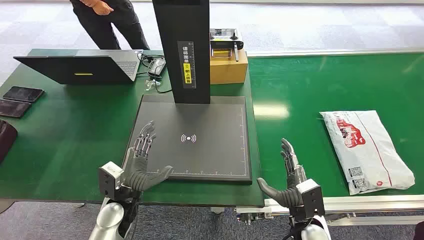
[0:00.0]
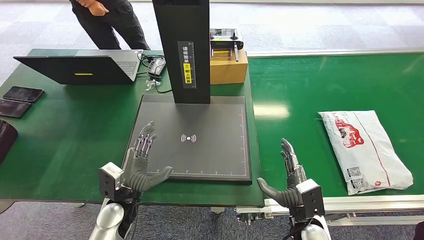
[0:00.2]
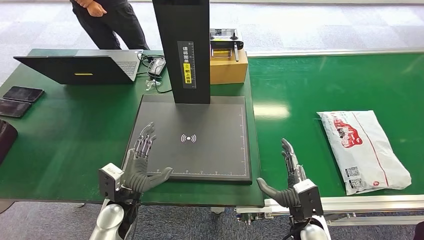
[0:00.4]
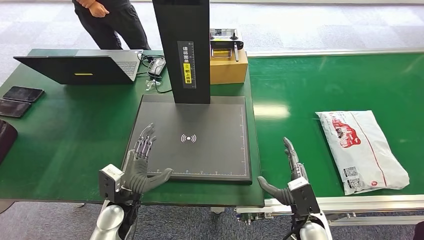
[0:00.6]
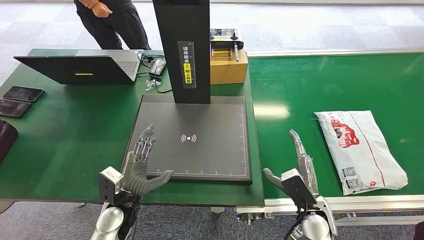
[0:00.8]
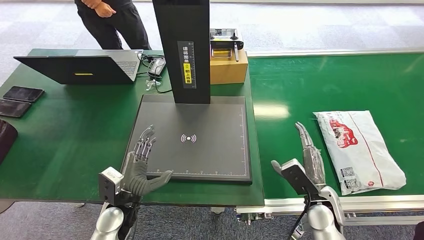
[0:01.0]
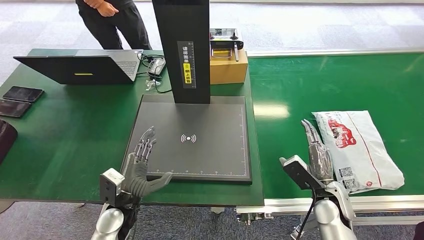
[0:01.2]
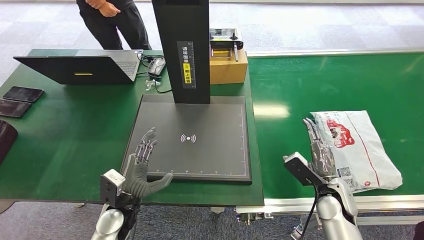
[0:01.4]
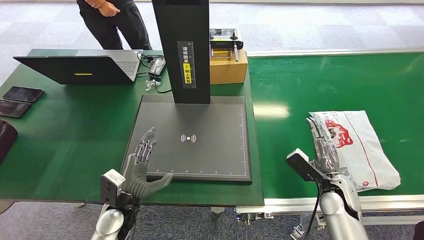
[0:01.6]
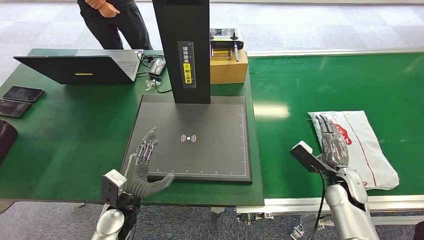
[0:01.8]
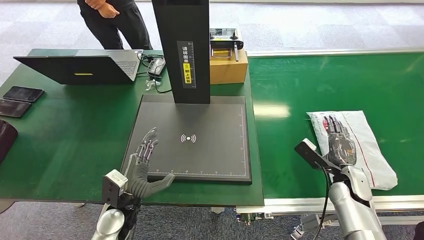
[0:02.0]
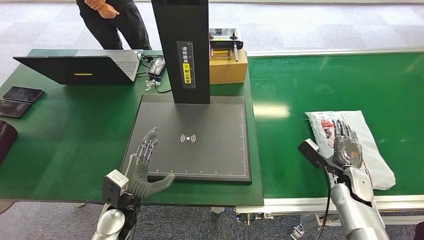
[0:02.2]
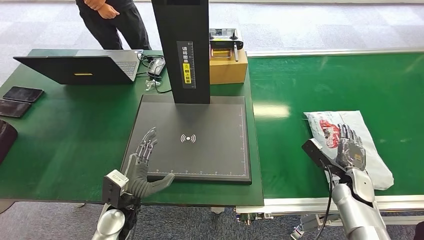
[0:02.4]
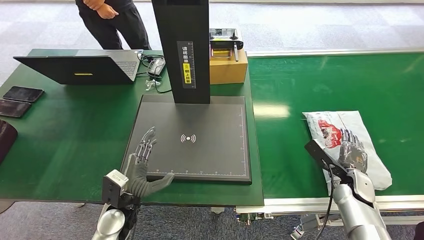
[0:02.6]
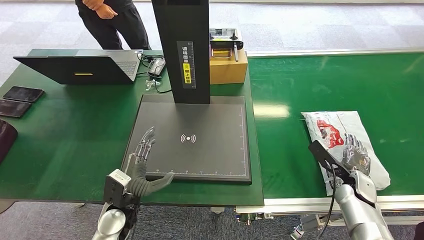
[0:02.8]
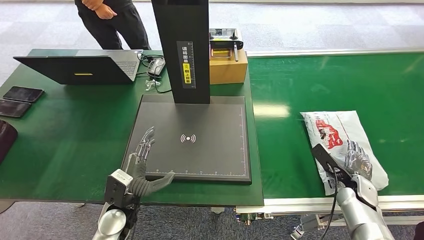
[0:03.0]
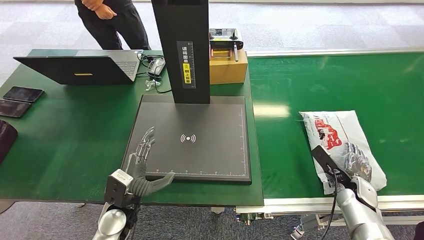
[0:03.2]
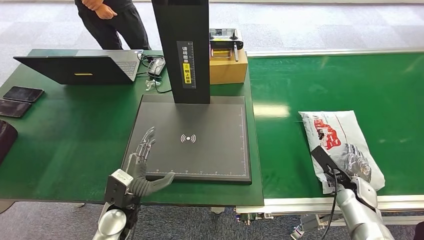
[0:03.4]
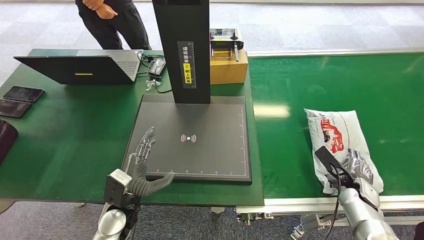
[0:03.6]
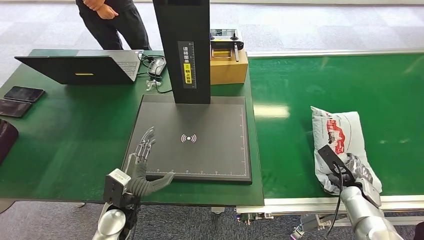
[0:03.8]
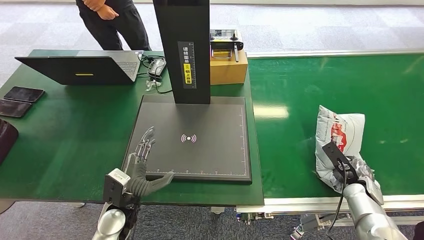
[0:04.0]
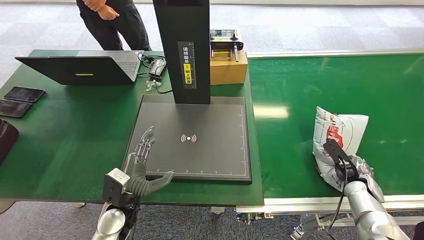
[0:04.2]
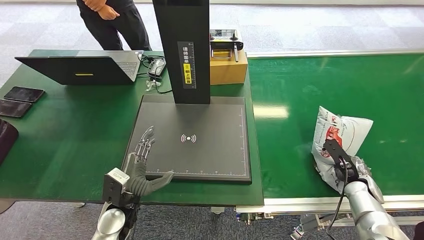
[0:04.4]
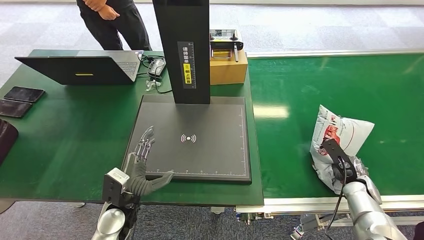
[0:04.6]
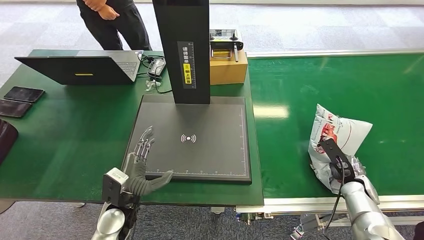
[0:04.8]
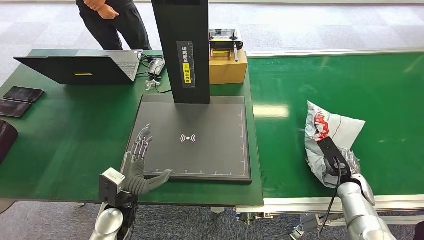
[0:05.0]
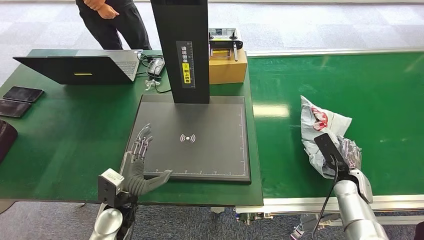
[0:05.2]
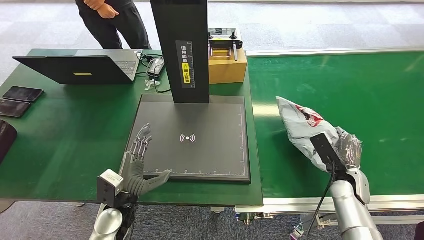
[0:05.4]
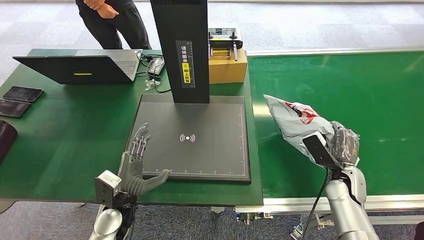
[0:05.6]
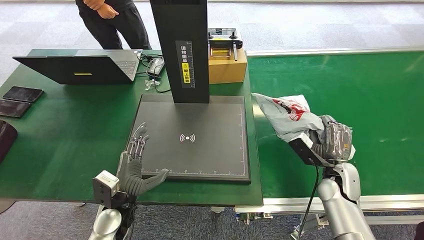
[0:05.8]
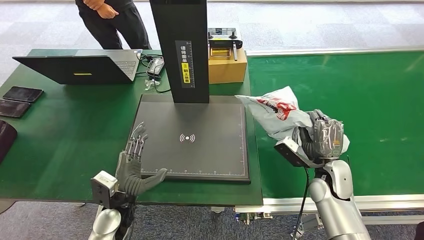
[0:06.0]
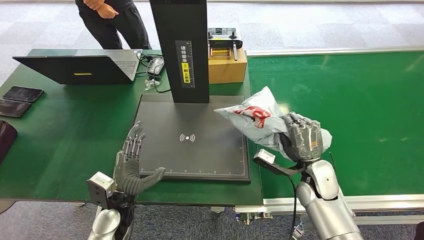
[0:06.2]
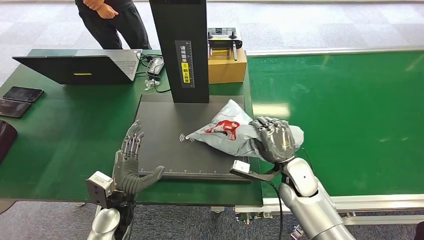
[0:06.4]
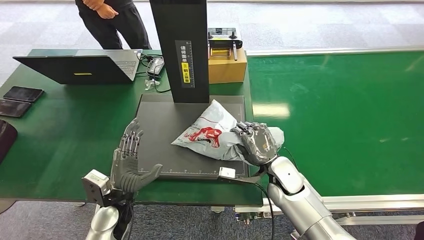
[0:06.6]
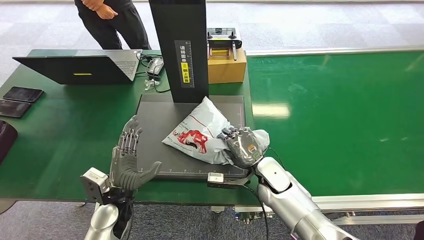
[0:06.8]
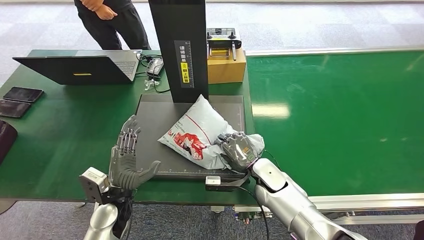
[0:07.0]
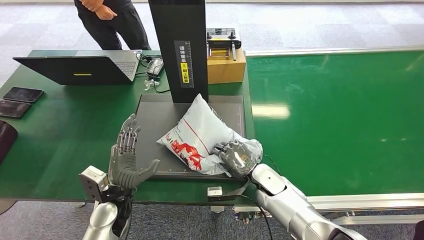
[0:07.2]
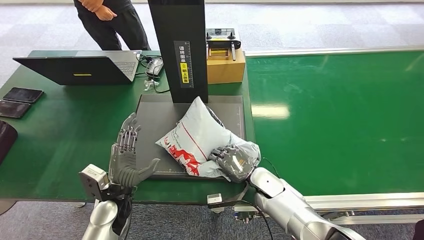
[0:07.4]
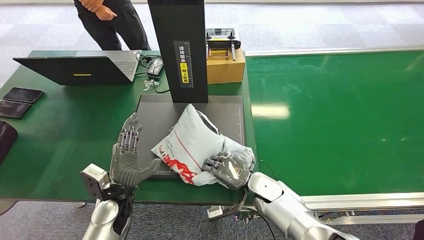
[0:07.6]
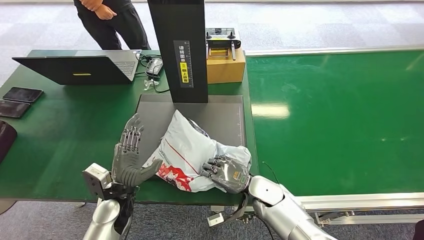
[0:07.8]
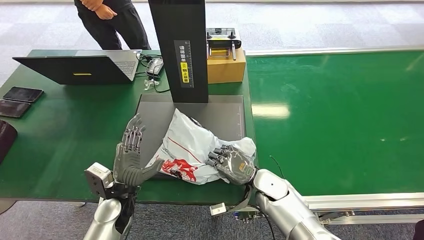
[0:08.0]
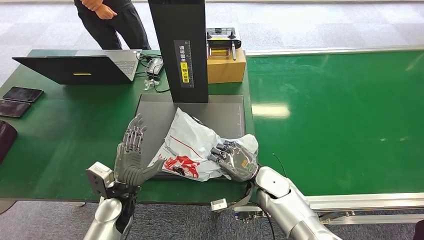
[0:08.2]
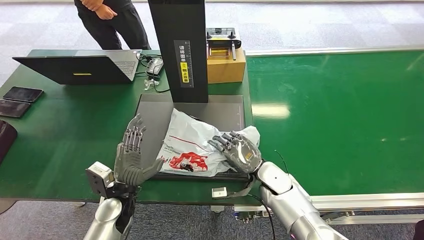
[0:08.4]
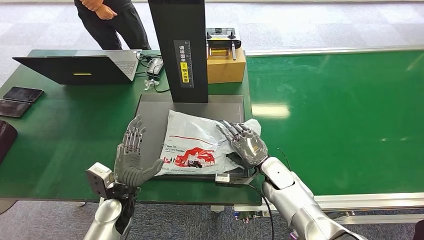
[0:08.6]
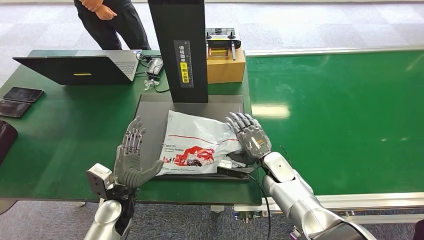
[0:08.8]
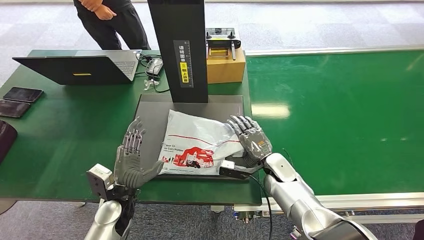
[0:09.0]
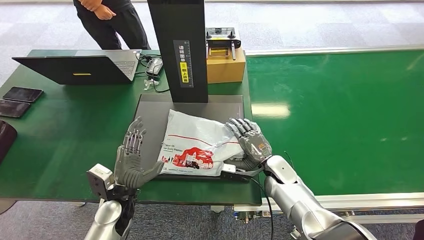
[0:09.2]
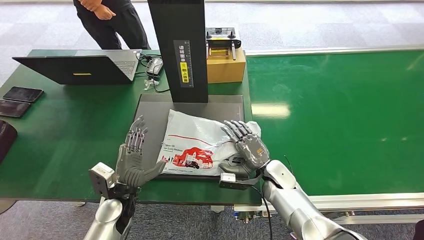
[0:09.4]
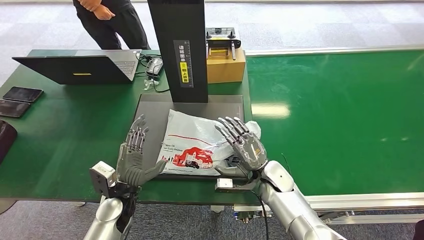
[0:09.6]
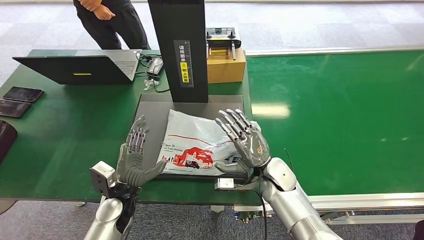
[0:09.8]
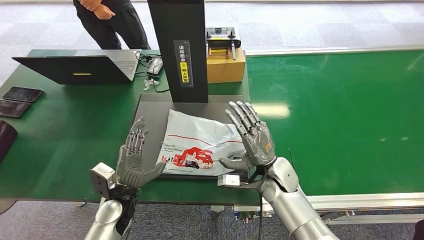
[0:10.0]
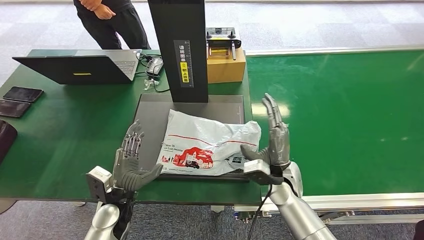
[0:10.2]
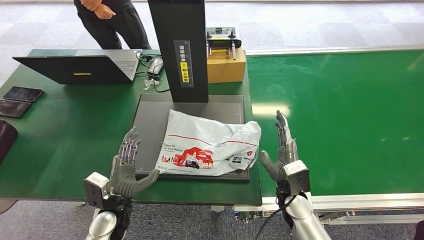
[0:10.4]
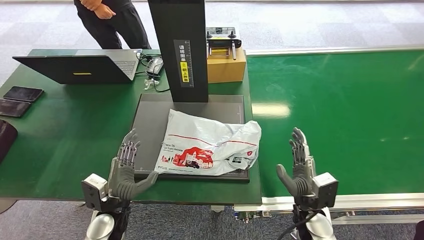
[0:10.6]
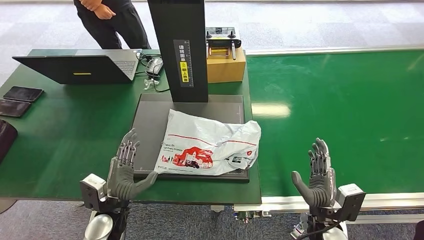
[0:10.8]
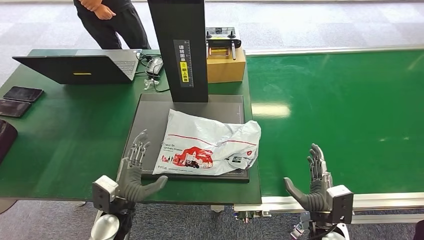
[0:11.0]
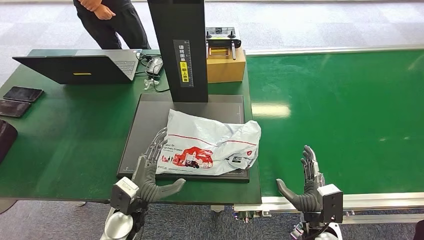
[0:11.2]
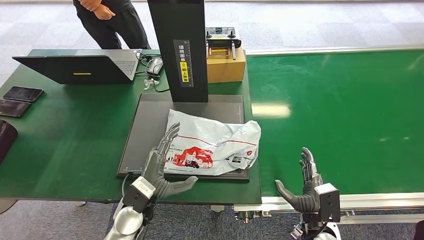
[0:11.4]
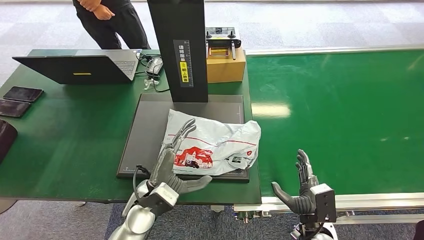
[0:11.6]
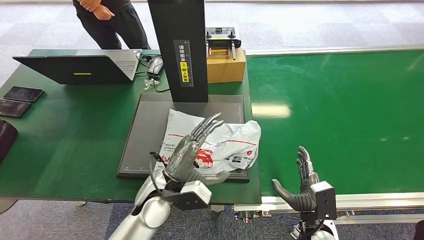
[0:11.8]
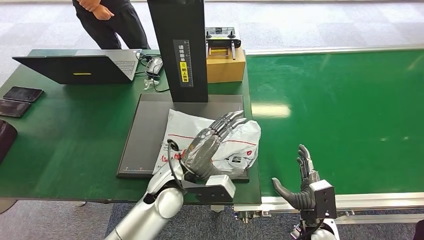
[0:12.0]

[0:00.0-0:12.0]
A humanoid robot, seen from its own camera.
Step, 0:00.0 to 0:06.0: Pick up the package from the conveyor belt.
Step, 0:06.2 to 0:10.4: Place the package onto the inbound machine.
0:01.6 to 0:03.0: The right hand heads to the right, covering about 10 cm.
0:07.6 to 0:09.0: The right hand changes place by roughly 5 cm.
0:09.0 to 0:10.4: The right hand travels backward by about 10 cm.
0:10.4 to 0:12.0: The left hand travels to the right, upward and forward by about 20 cm; the right hand travels backward and to the right by some 10 cm.

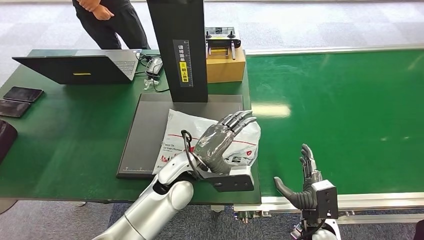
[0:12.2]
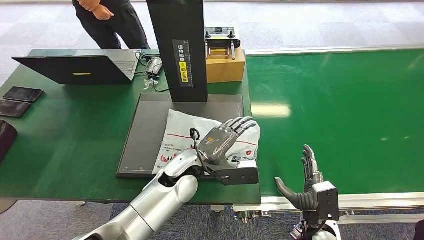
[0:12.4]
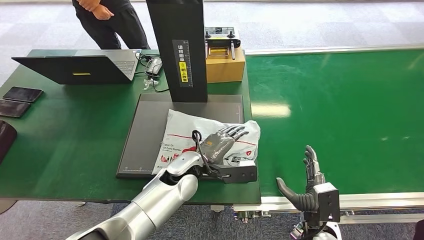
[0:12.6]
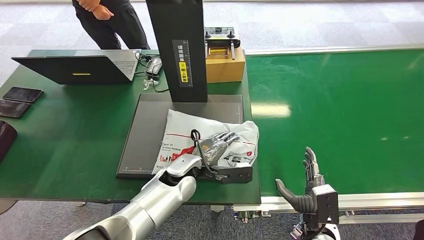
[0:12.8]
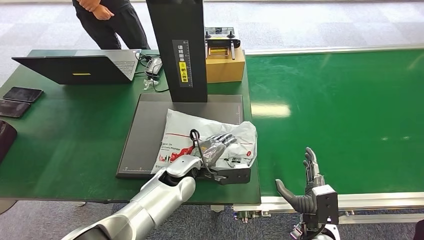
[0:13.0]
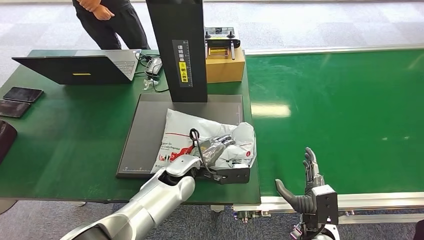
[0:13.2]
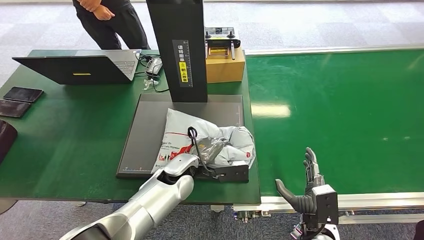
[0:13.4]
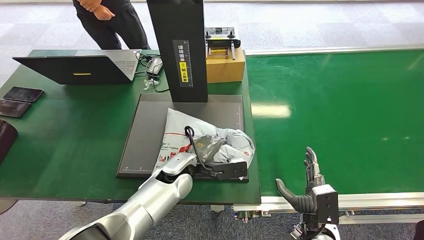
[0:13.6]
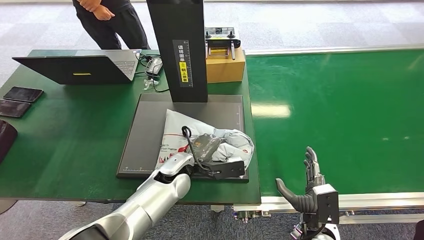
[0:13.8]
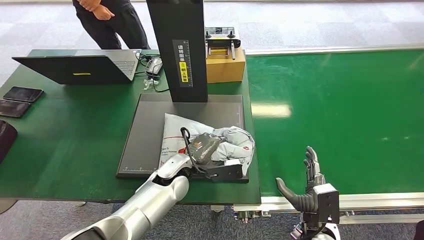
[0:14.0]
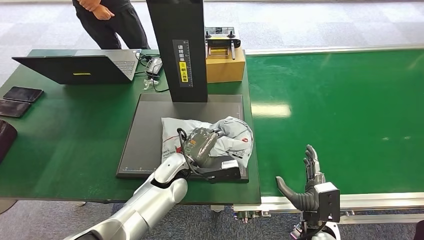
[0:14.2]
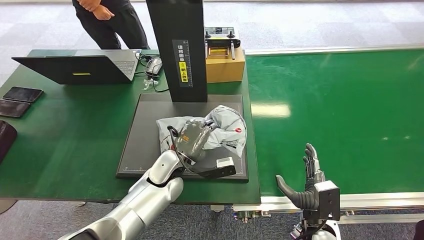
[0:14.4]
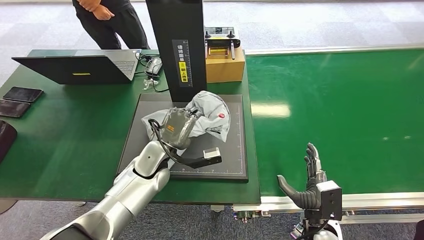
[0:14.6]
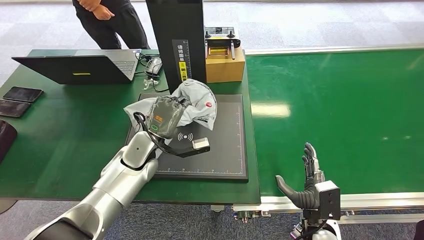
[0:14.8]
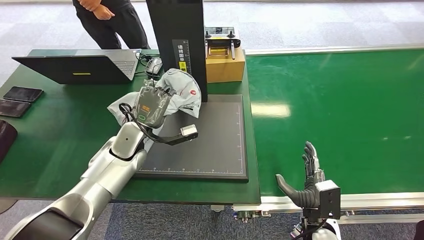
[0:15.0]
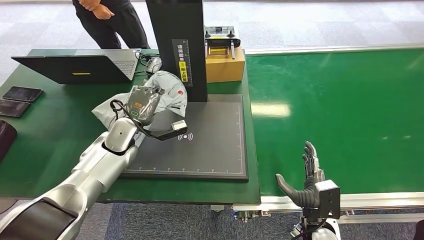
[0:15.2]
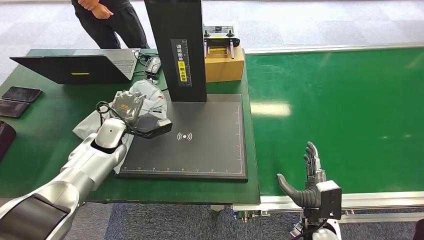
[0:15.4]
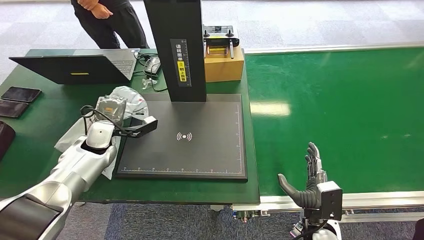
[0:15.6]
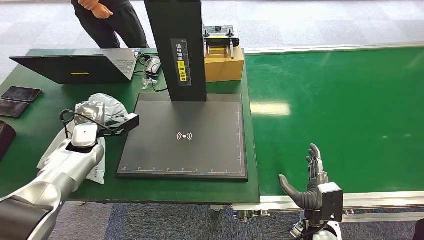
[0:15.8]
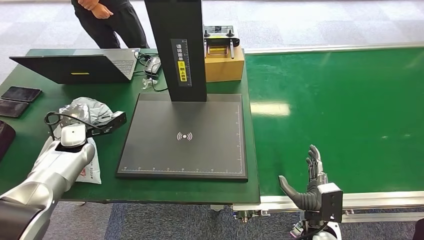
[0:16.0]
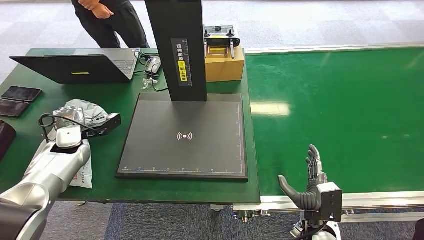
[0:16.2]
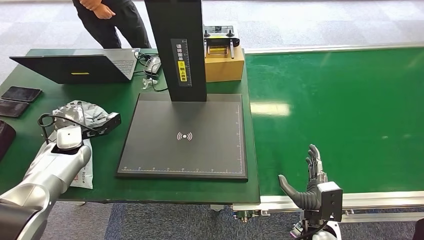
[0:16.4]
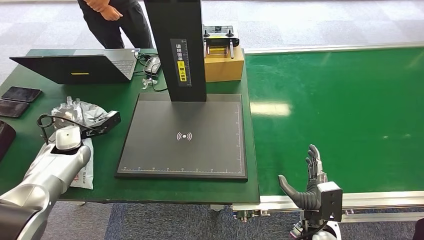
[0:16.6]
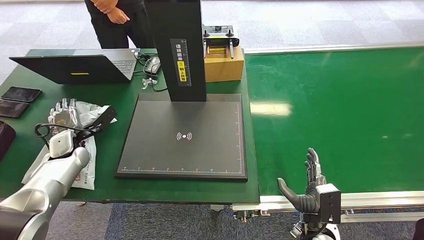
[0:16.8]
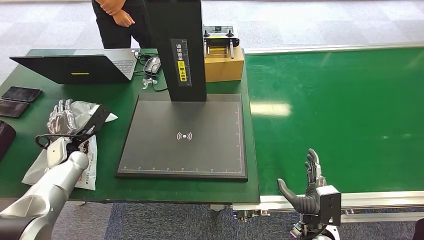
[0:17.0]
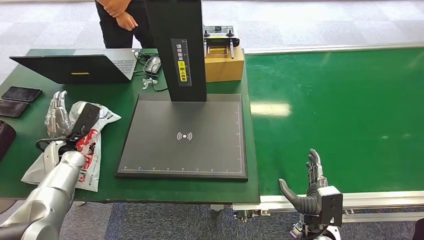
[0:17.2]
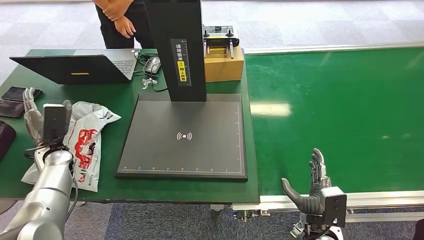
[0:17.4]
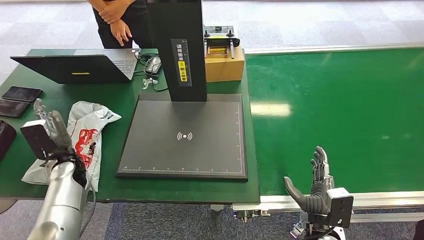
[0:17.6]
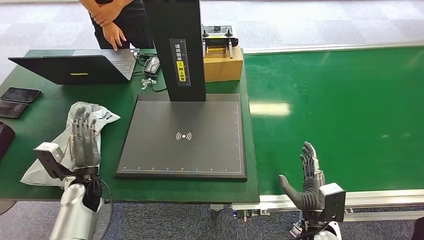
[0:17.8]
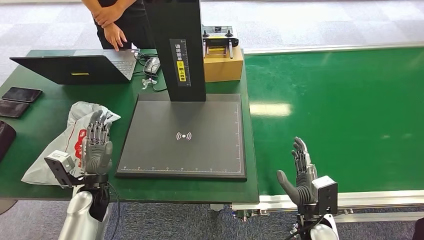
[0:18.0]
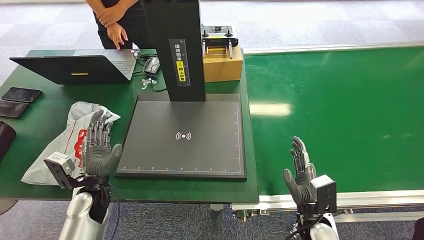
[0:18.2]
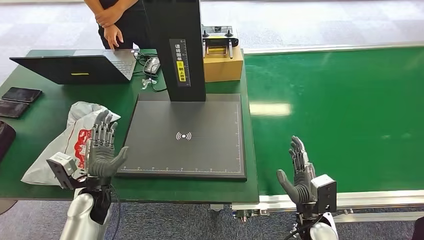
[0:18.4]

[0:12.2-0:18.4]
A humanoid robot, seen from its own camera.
Step, 0:12.2 to 0:15.2: Pick up the package from the inbound machine.
Step, 0:15.4 to 0:18.2: Place the package into the parcel locker.
0:12.2 to 0:13.8: The left hand is displaced downward by about 5 cm.
0:15.4 to 0:16.8: The left hand shifts some 10 cm to the left.
0:16.8 to 0:18.4: The left hand goes about 15 cm to the right and backward.
